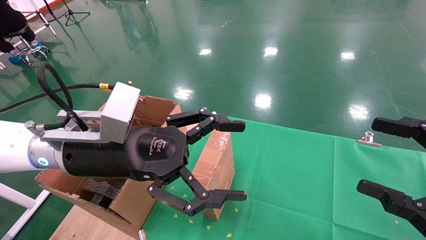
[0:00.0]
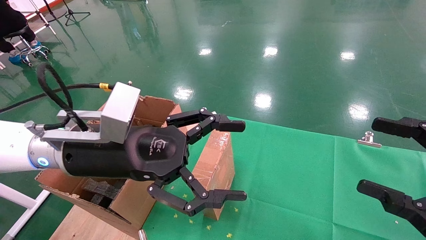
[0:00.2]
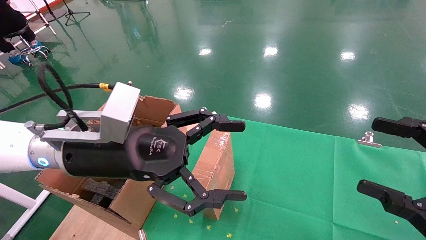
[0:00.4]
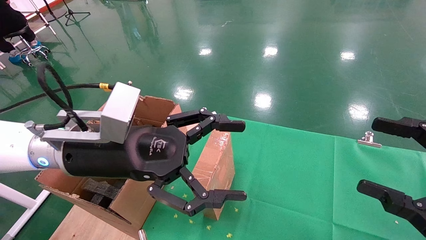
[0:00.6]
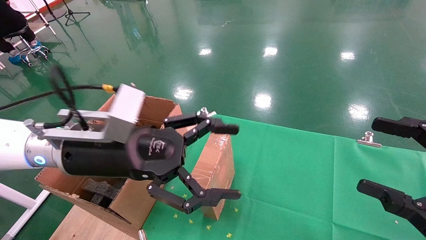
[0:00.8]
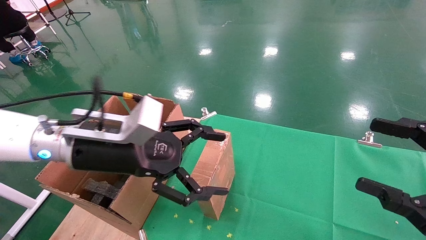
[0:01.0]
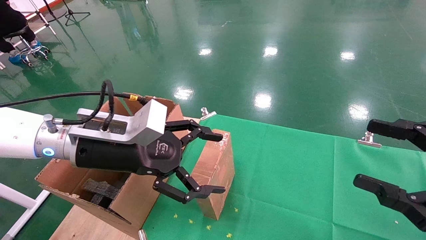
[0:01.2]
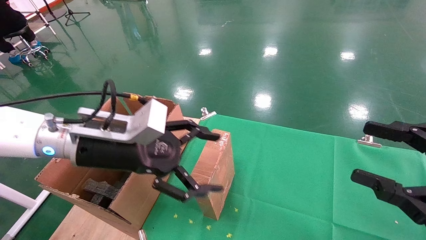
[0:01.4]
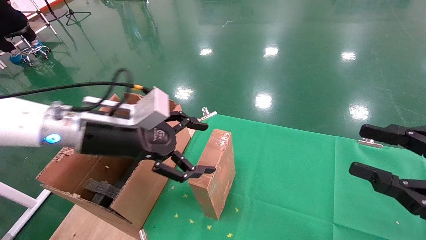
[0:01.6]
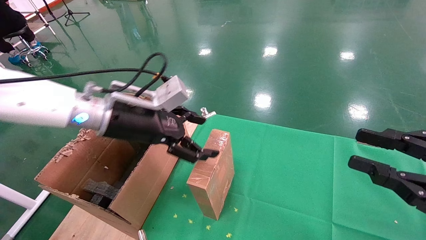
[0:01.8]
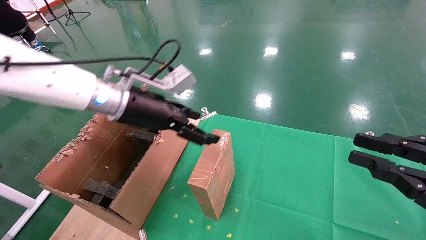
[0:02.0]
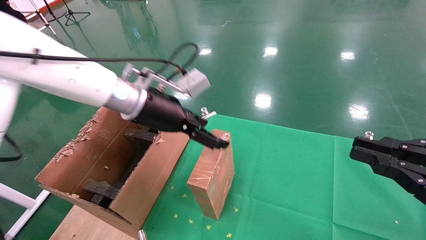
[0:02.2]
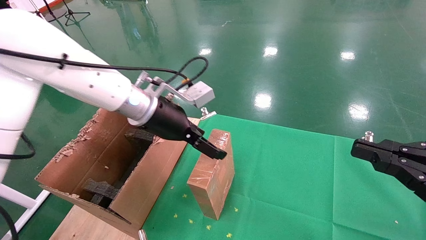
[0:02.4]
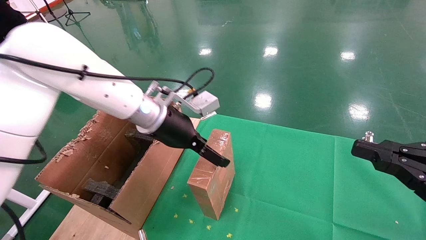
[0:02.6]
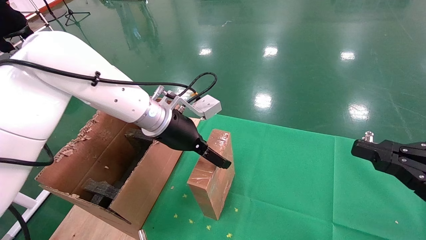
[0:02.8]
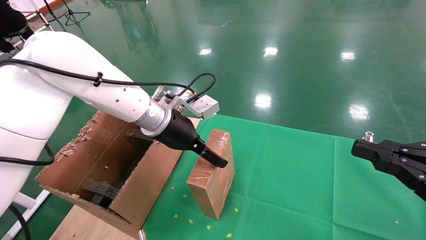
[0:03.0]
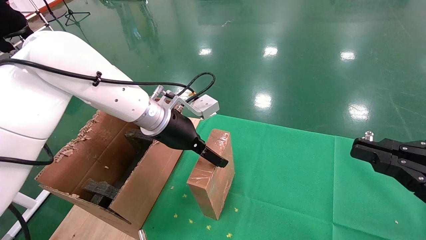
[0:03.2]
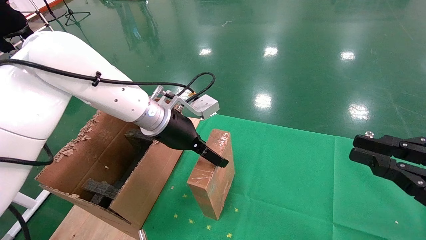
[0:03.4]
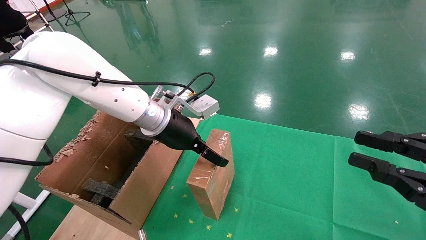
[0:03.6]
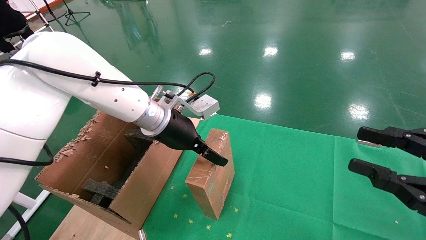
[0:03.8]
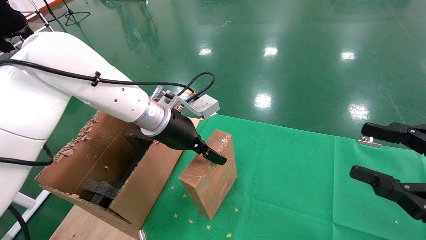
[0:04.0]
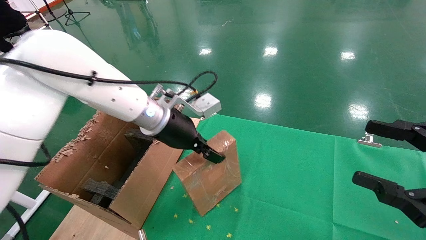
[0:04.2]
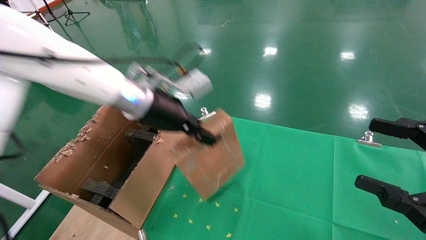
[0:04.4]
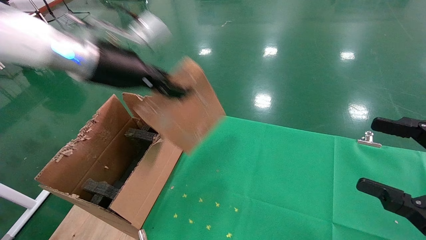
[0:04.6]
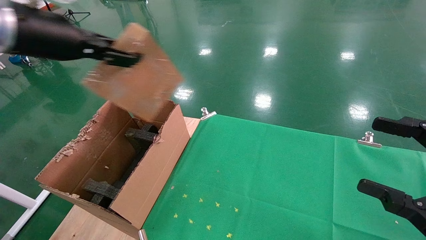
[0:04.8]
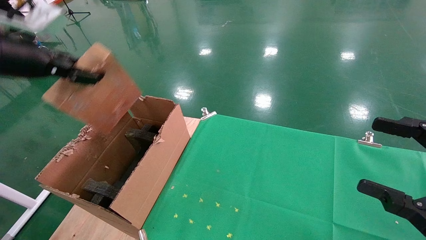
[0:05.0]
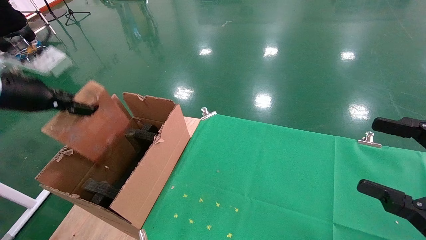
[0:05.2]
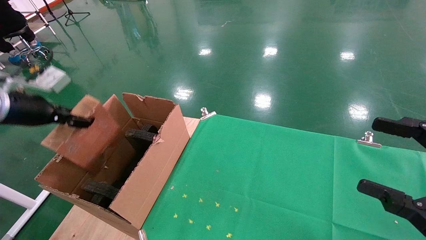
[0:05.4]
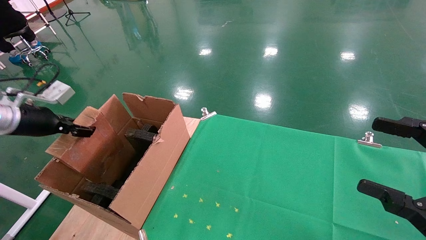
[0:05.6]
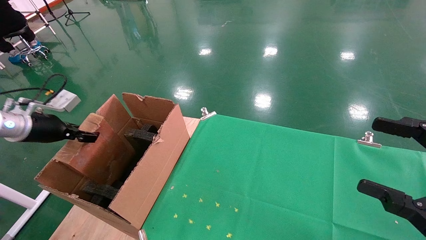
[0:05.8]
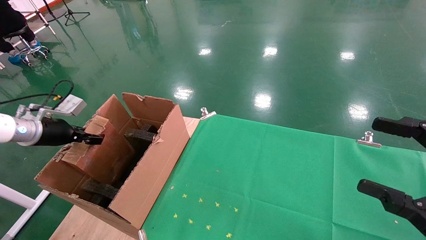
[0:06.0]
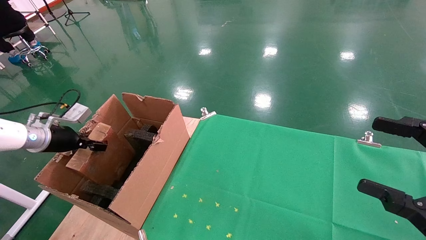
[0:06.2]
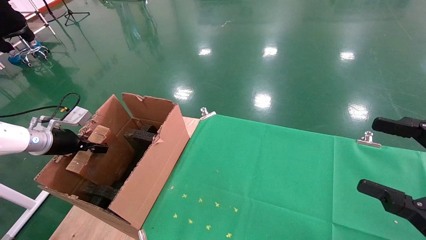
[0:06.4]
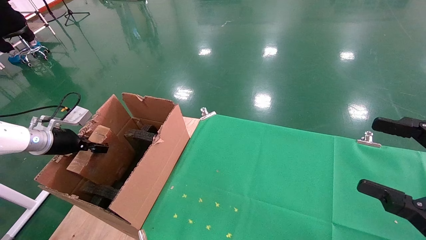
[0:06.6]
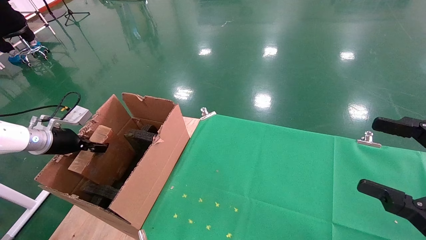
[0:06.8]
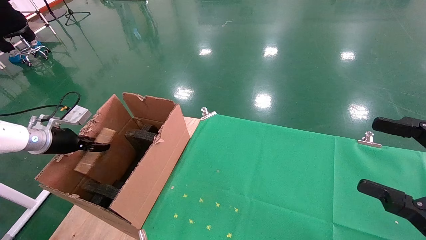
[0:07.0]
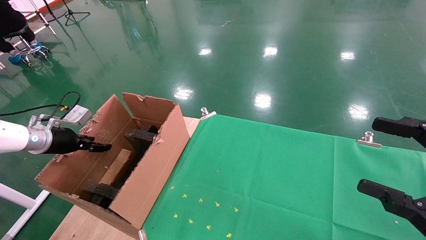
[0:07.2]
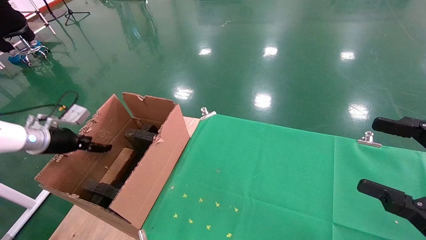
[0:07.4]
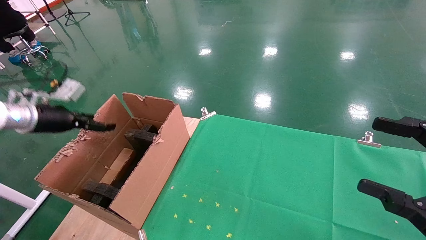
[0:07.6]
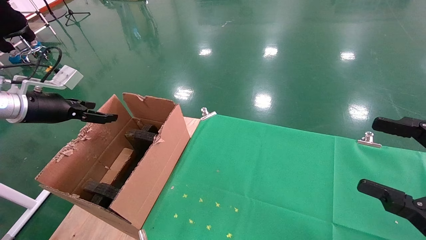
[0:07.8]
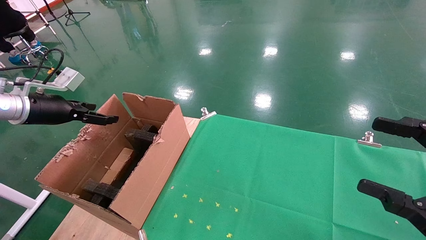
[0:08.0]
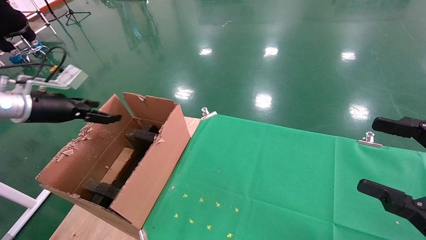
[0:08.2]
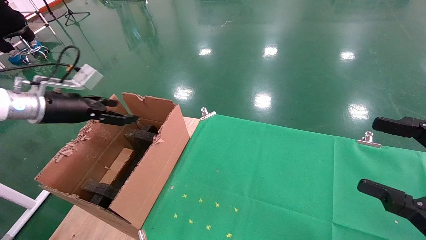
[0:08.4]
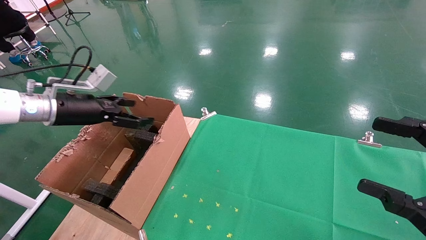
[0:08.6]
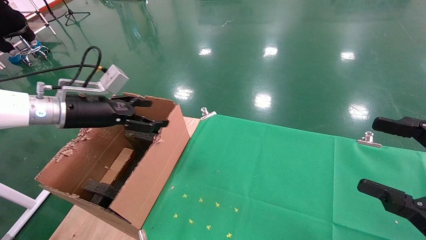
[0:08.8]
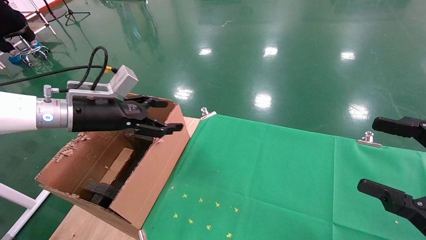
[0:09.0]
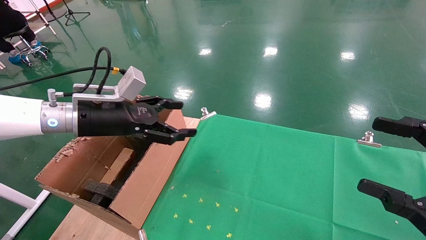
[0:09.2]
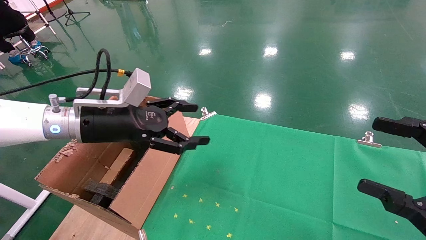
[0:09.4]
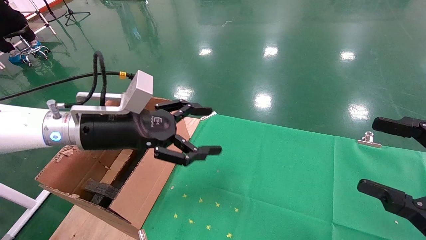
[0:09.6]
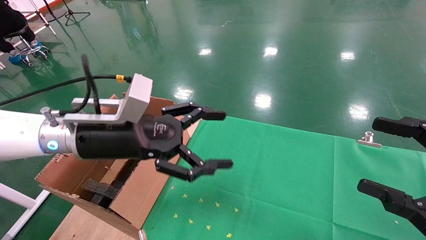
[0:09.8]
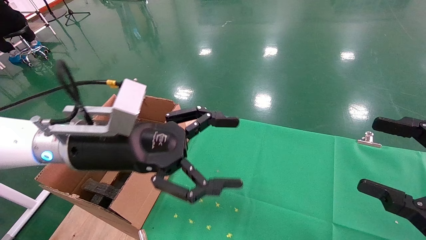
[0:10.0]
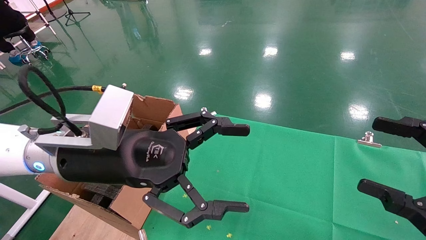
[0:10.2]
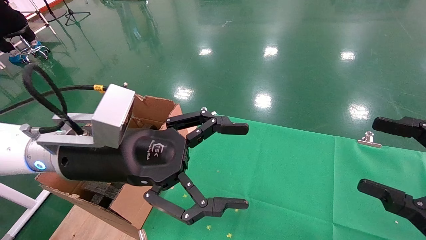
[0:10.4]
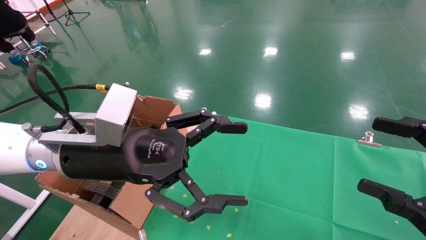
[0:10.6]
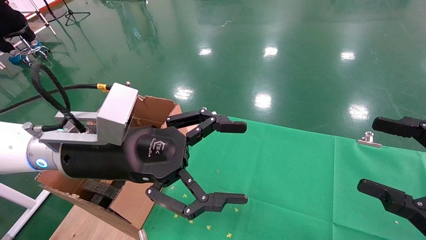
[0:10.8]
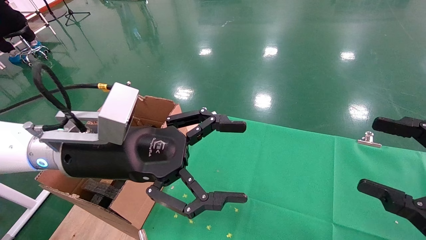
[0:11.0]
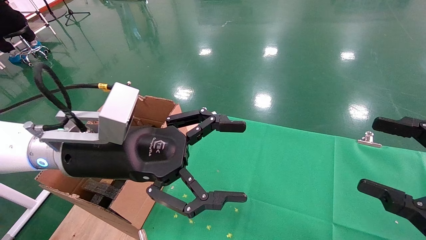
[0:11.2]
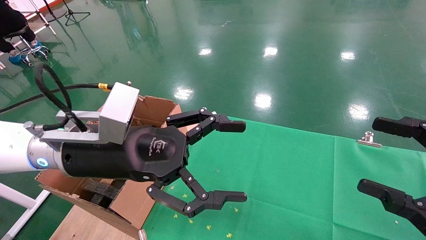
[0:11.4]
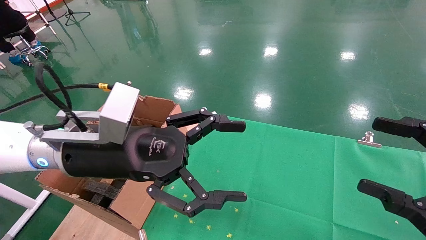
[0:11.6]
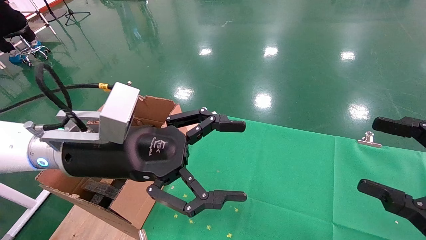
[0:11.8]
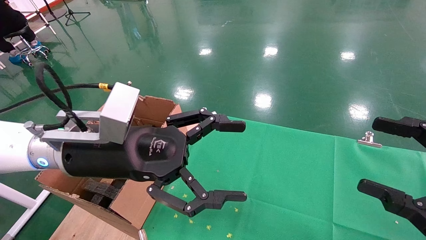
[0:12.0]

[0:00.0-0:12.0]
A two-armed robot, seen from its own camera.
Task of the whole recording: using a robotic arm to pick up a cardboard box and palace it the carton.
Step, 0:01.0 to 0:04.6: Pick up the mouse and the power cord paper box.
Step, 0:04.8 to 0:08.2: Place the mouse and the power cord paper box into the container.
0:00.0 to 0:01.6: The right gripper closes, while the left gripper travels forward by approximately 5 cm.
0:01.6 to 0:03.0: The right gripper closes its fingers. Meanwhile the left gripper shifts some 10 cm forward and to the right.
0:03.0 to 0:04.4: The right gripper opens its fingers; the left gripper is displaced upward by roughly 5 cm, and closes its fingers.
0:04.4 to 0:06.0: The left gripper is displaced to the left and downward by about 30 cm.
0:06.0 to 0:07.6: The left gripper opens its fingers.
0:07.6 to 0:09.0: The left gripper travels to the right by roughly 15 cm.
0:09.0 to 0:10.4: The left gripper is displaced to the right and backward by some 15 cm.
0:10.4 to 0:12.0: Neither gripper changes place.

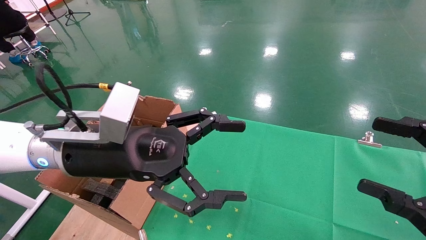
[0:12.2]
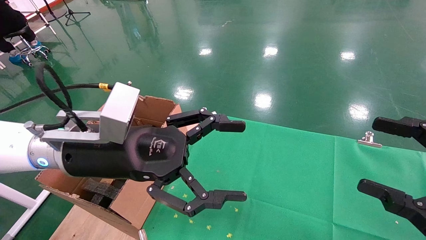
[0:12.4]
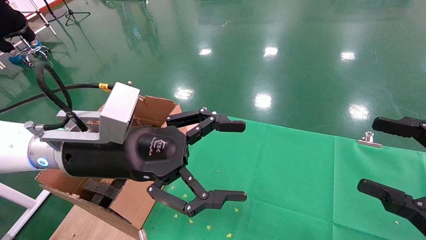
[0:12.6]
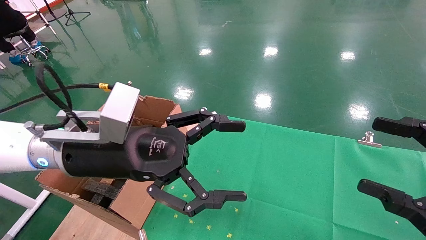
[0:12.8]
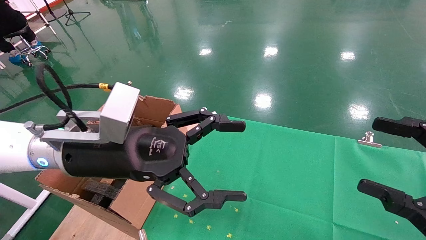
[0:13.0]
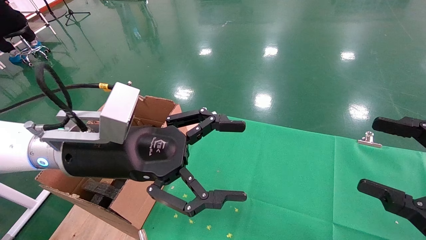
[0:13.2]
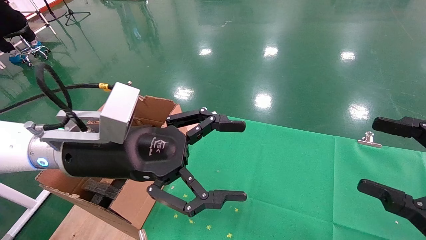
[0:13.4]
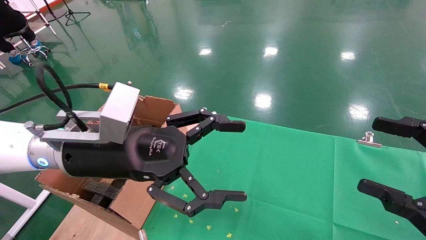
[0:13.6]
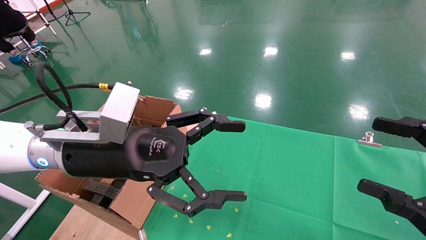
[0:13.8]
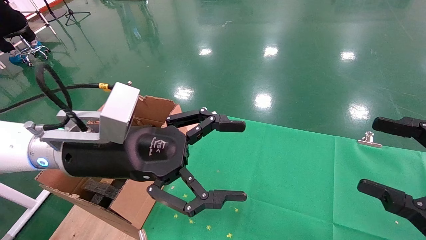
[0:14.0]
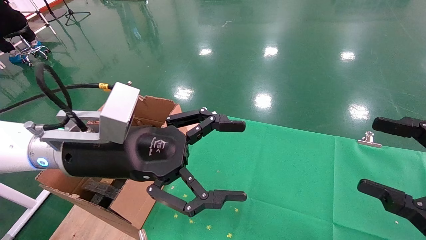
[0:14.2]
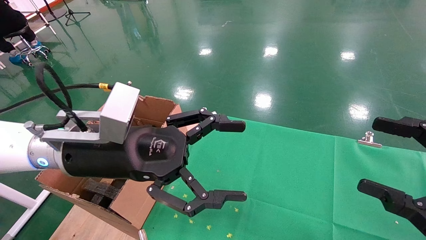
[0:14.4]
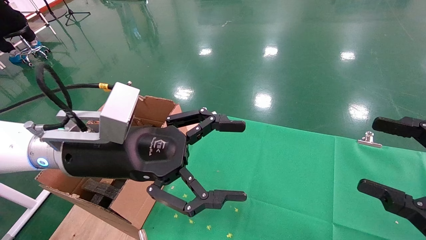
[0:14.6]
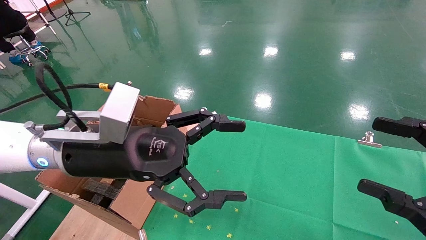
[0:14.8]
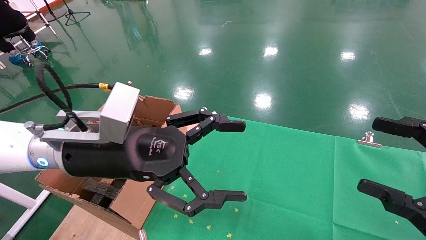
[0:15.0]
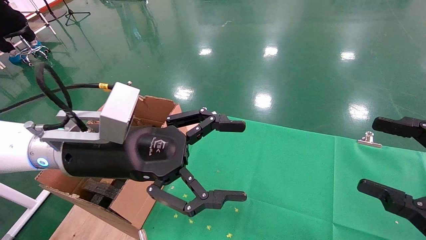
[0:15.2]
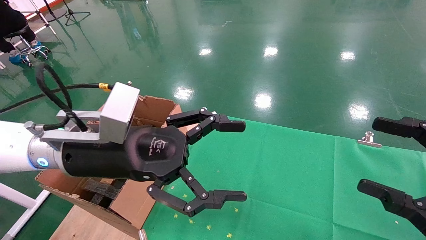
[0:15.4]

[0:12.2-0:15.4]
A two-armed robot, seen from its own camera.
Task of the whole recording: using a robotic arm to pick up a cardboard box and palace it the carton.
0:12.2 to 0:15.4: Both grippers stay about where they are.

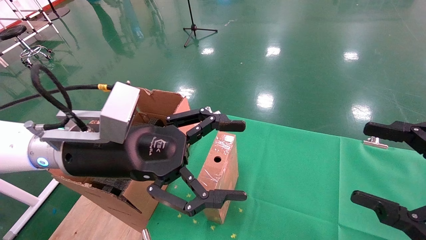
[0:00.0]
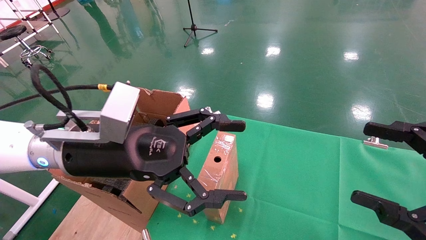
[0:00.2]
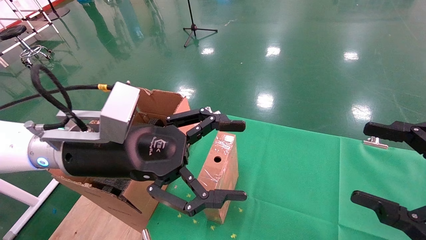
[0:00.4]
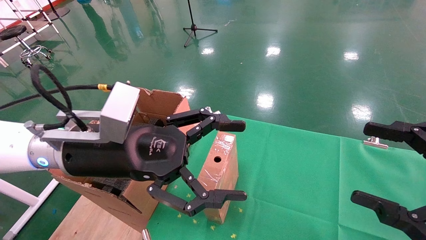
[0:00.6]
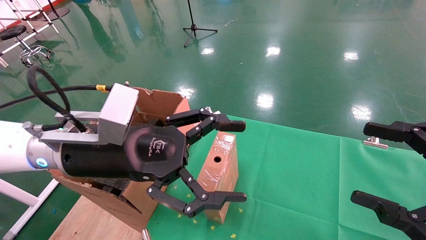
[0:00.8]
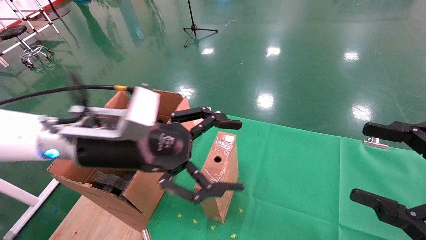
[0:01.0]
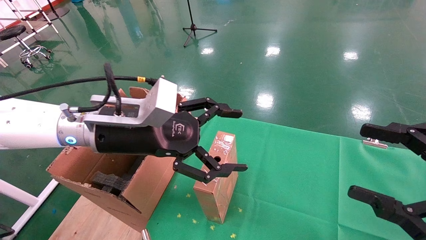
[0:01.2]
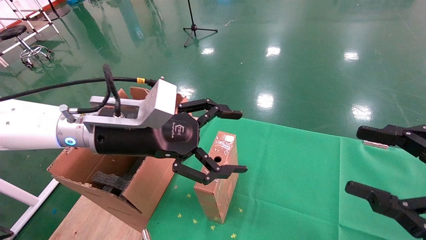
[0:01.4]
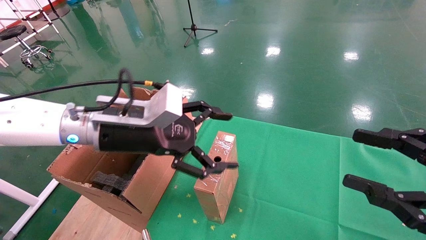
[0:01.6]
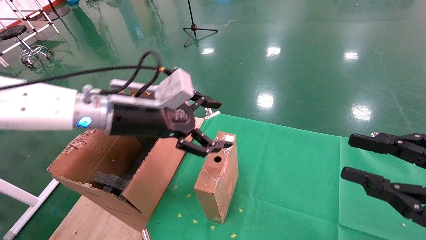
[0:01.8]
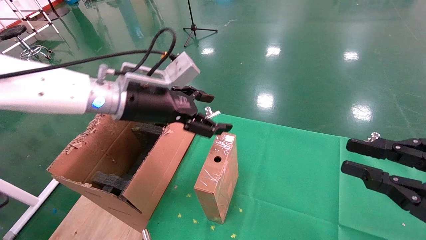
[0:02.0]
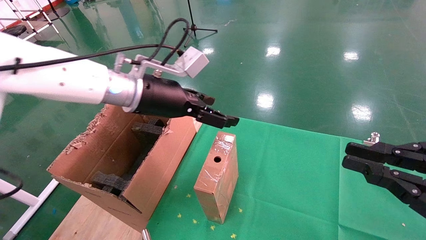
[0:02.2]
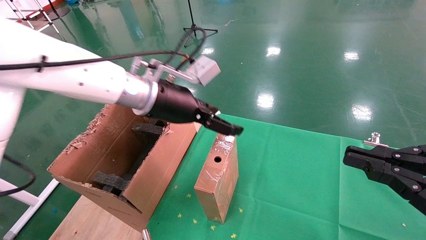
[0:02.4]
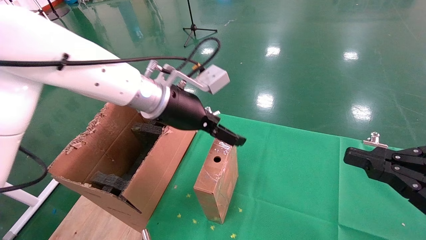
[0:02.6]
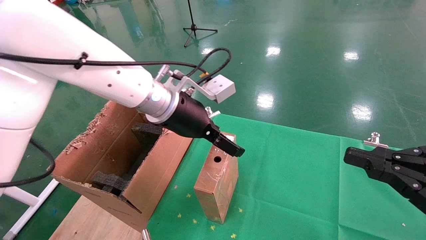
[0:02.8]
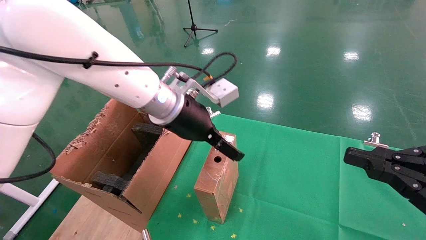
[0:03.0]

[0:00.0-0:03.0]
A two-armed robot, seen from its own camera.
Task of the whole recording: using a robotic arm to pick up a cardboard box and palace it the carton.
0:00.0 to 0:01.6: The left gripper is displaced forward by some 5 cm.
0:01.6 to 0:03.0: The right gripper closes up; the left gripper travels to the right and forward by roughly 10 cm.
